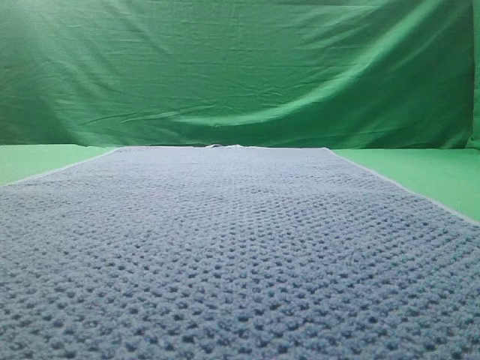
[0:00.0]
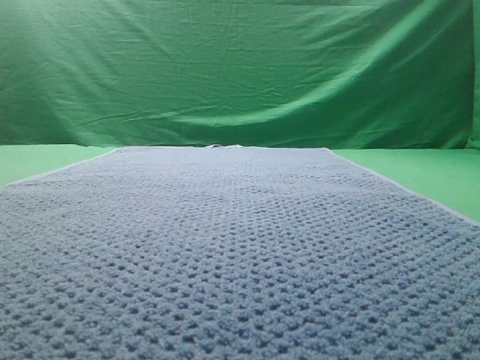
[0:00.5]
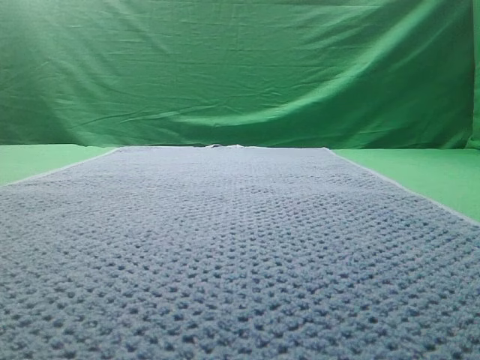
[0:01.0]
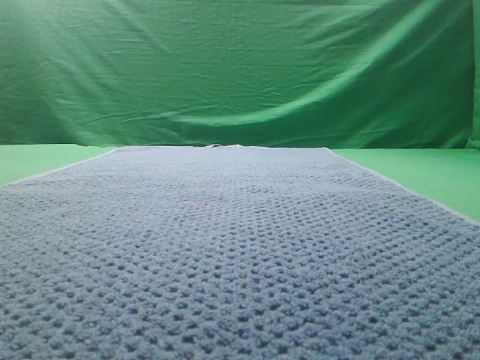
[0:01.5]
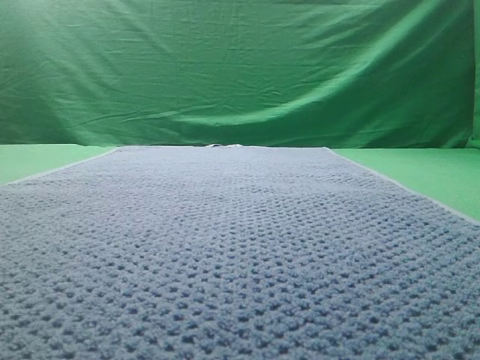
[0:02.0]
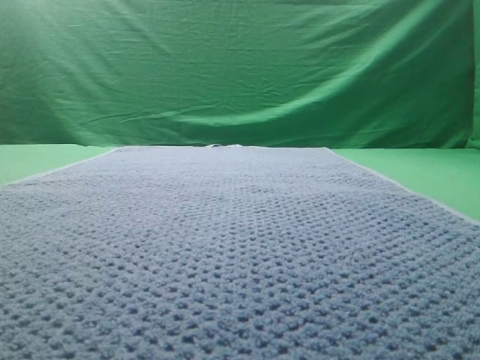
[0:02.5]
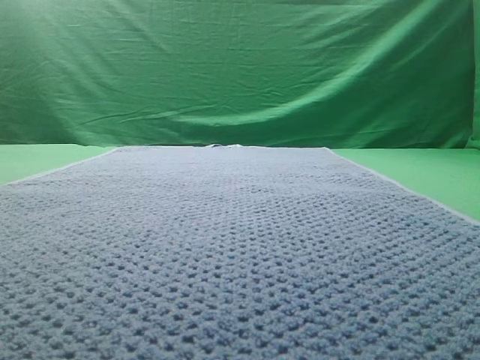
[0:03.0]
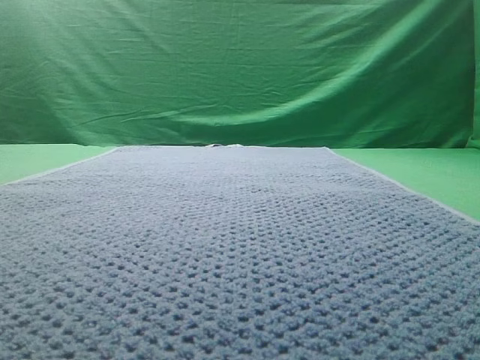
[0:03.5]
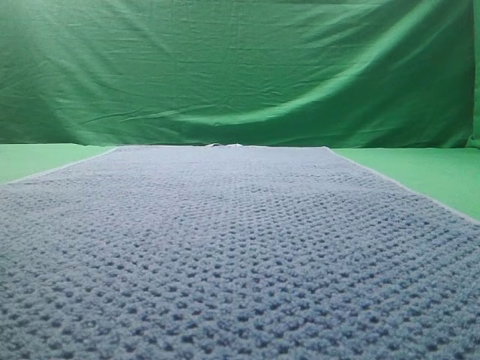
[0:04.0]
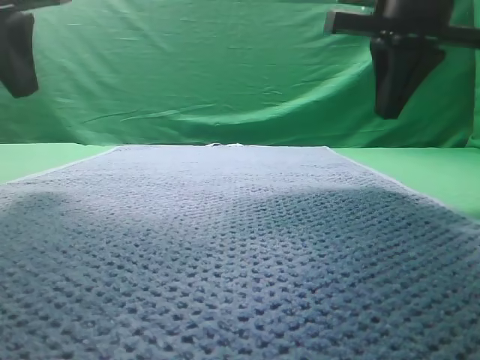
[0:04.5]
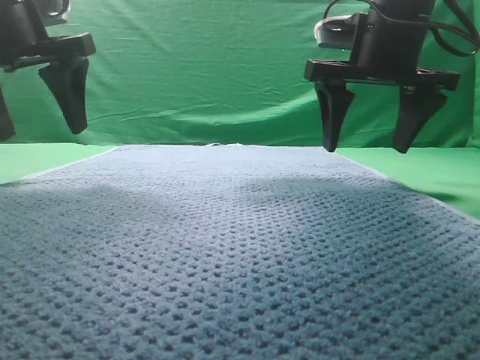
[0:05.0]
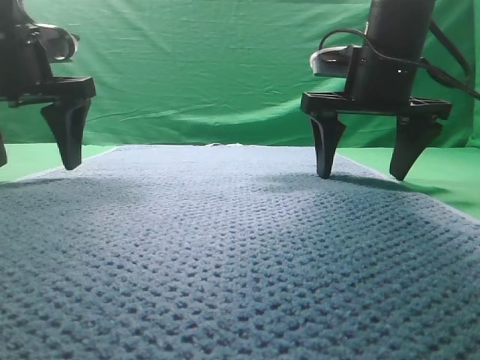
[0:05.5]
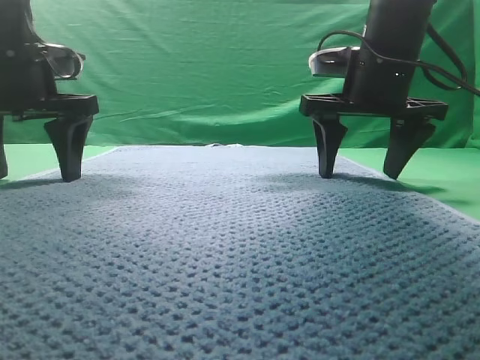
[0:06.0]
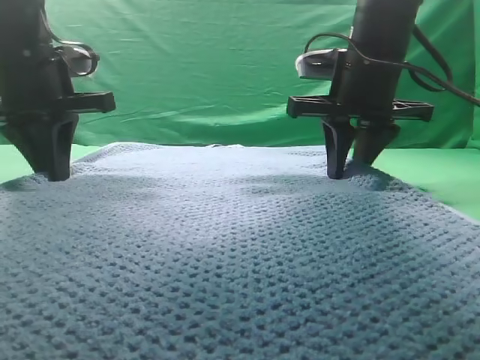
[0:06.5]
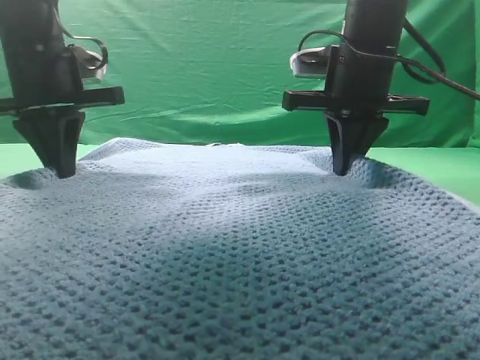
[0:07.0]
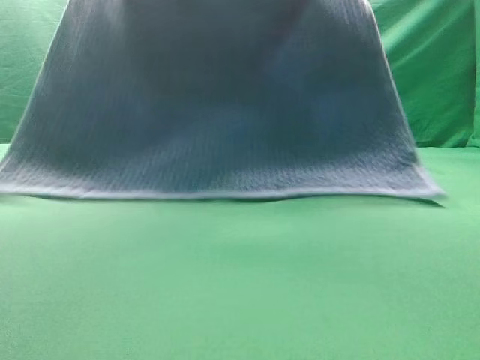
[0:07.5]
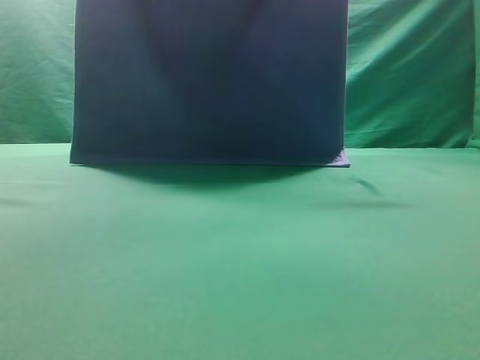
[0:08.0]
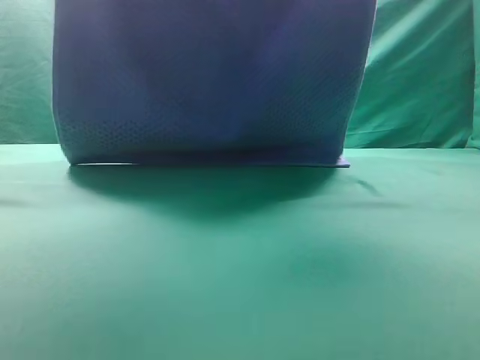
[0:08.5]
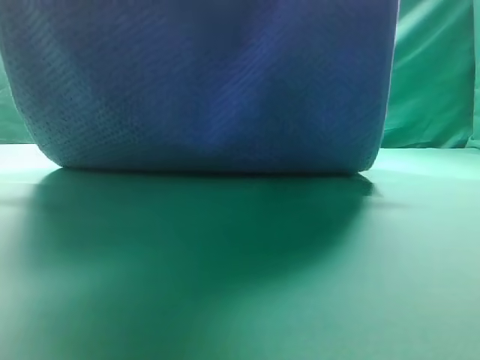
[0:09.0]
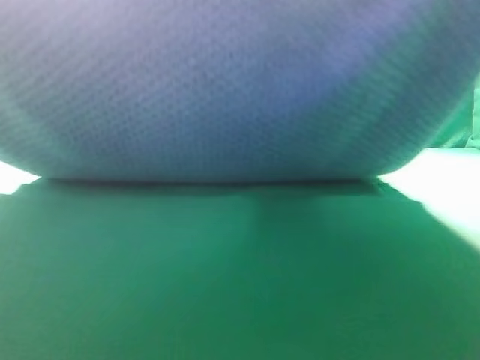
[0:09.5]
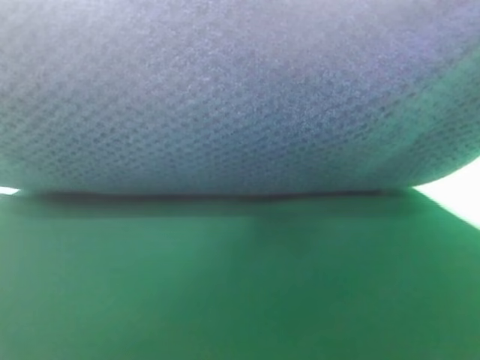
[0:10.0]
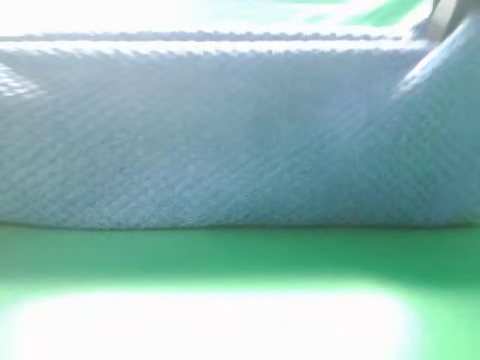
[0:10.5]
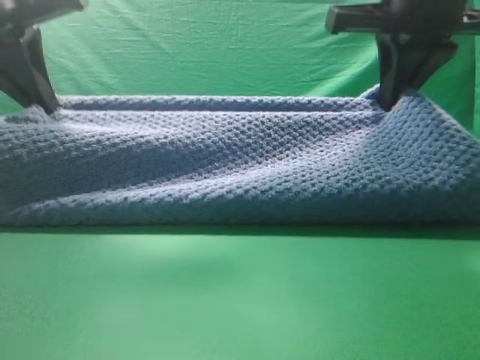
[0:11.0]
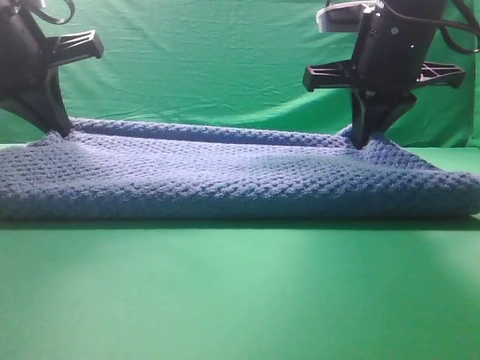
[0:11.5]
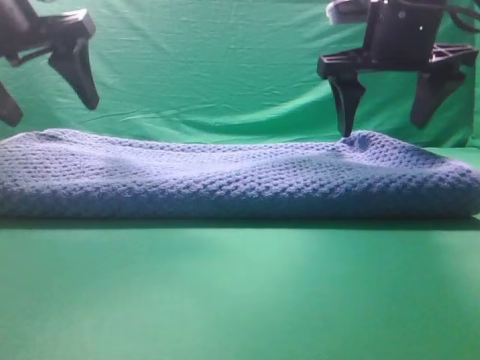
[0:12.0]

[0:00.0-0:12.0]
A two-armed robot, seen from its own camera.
Task of the whole recording: fold the towel on the table twice.
Step, 0:00.0 to 0:07.5: pick up the towel with two arm.

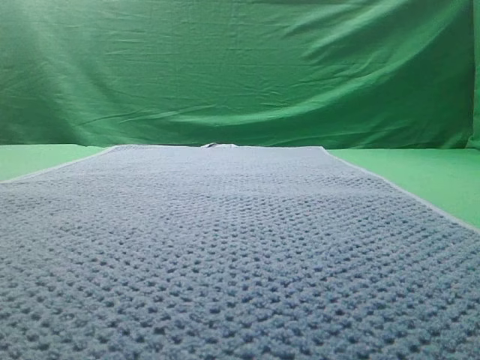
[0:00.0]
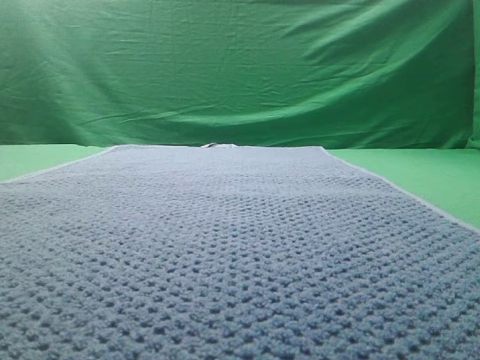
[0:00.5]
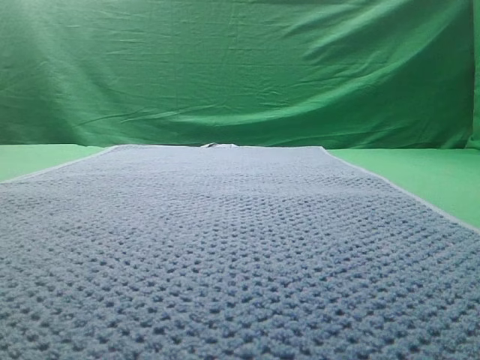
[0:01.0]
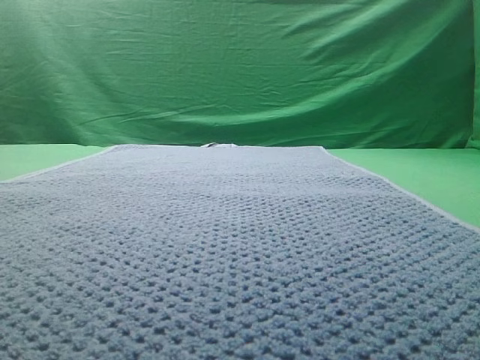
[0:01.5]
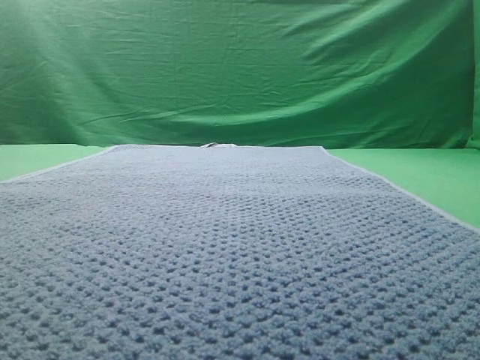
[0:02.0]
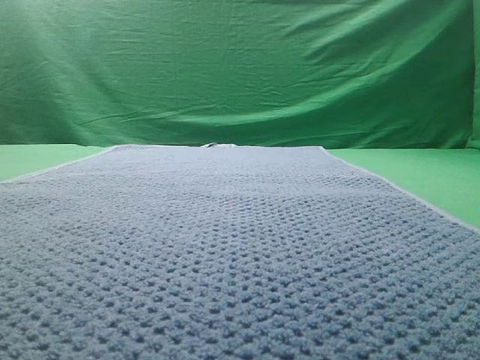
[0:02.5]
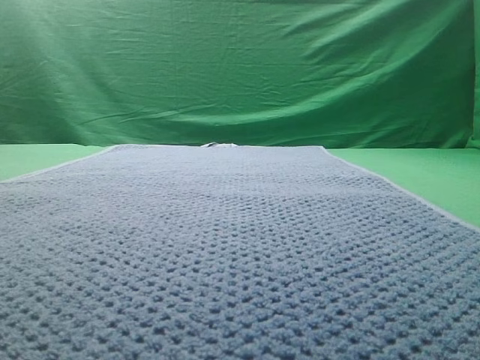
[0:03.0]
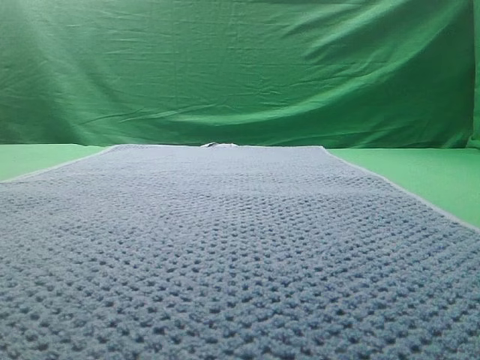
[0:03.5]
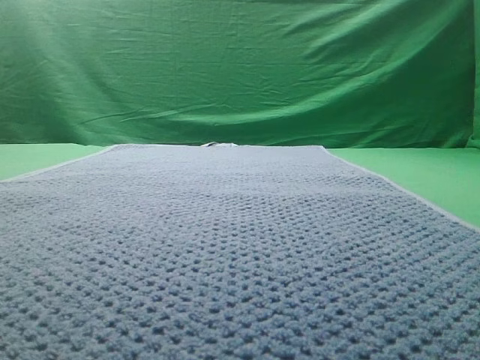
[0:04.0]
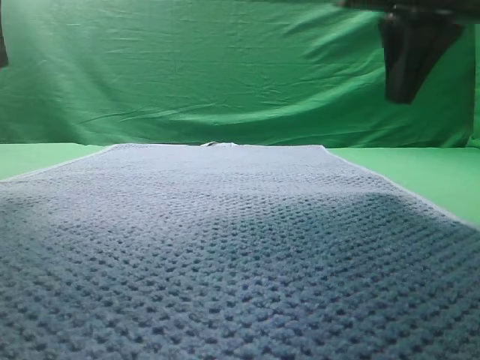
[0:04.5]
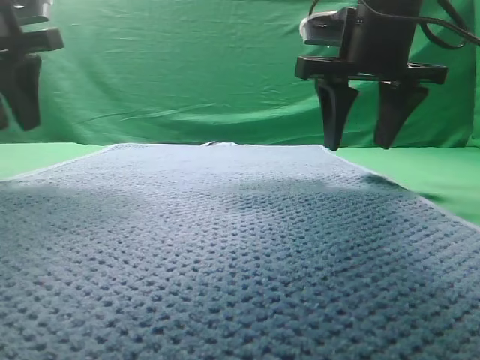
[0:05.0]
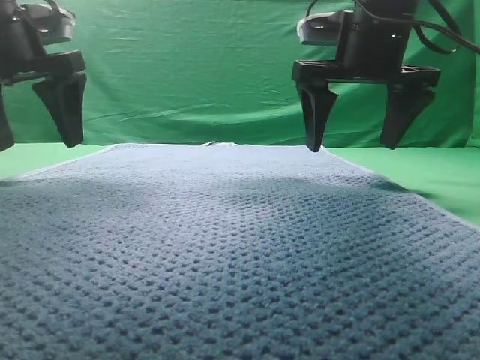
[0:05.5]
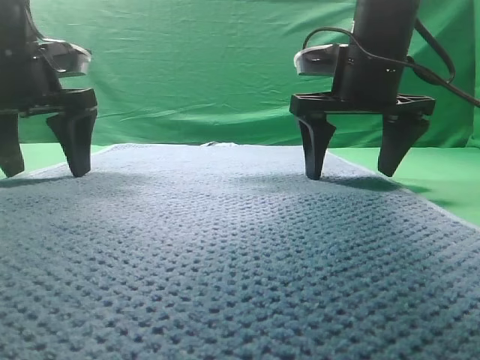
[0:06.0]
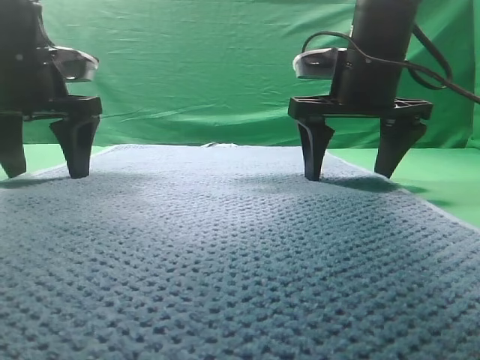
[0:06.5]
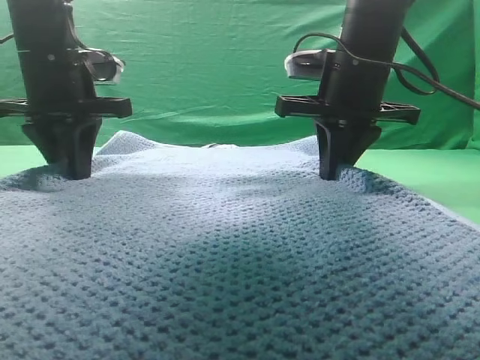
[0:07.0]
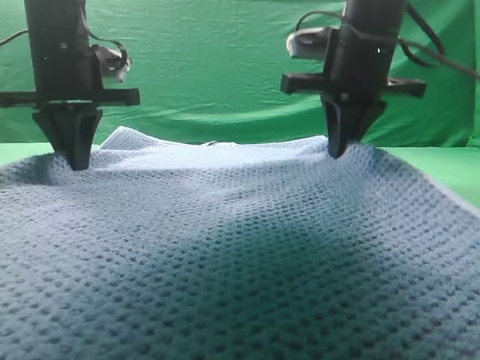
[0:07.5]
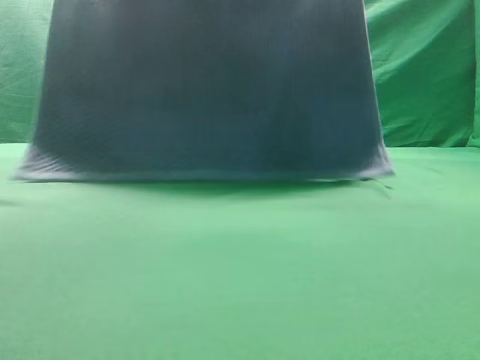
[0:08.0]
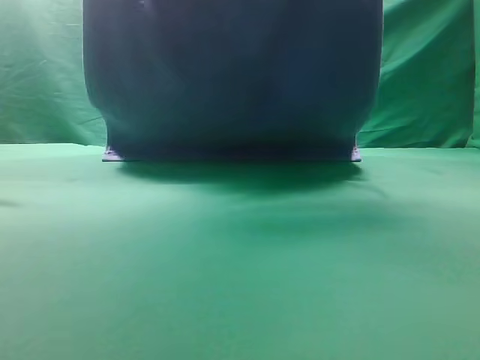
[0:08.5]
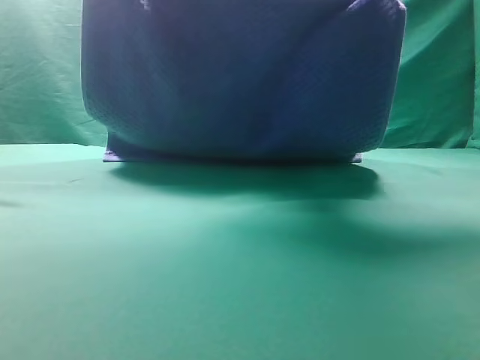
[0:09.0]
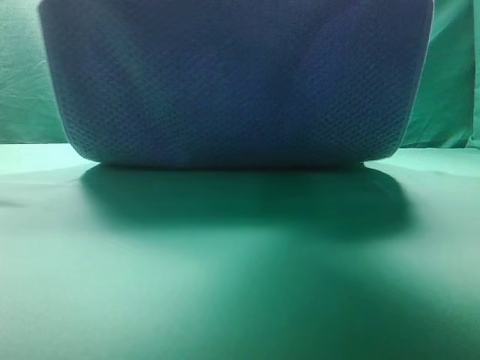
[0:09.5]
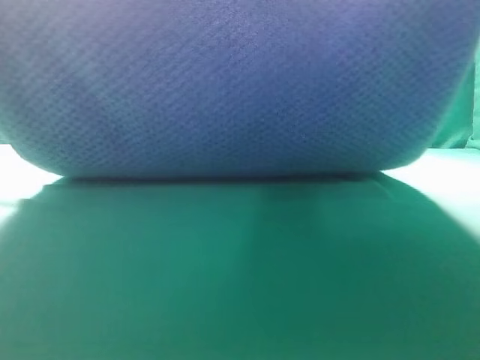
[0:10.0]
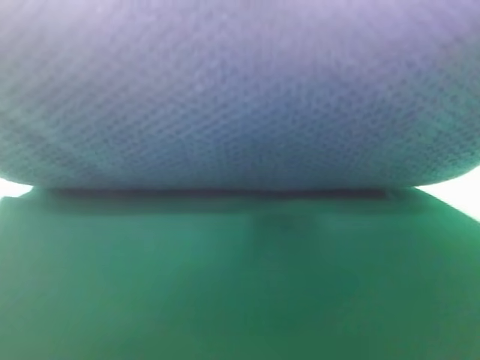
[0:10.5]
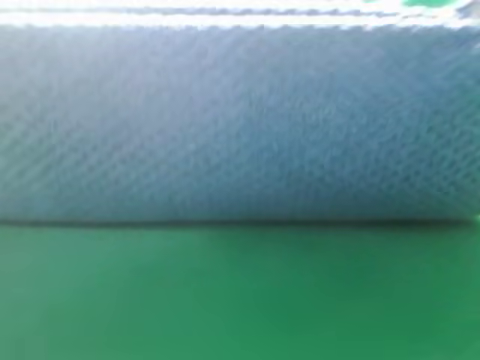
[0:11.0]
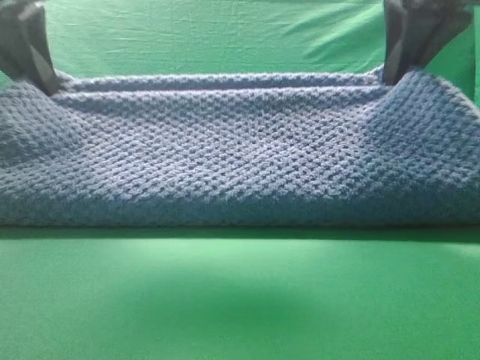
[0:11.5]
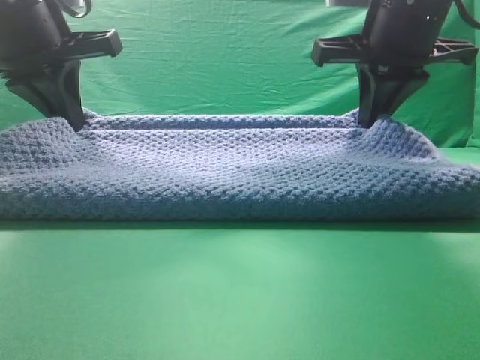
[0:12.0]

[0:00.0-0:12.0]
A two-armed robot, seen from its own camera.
Task of the whole recording: fold the towel on the table twice.
Step, 0:00.0 to 0:08.0: pick up the towel with two arm.

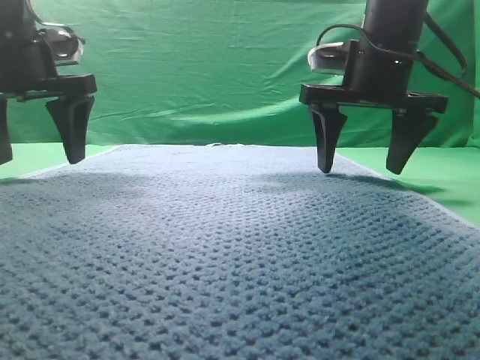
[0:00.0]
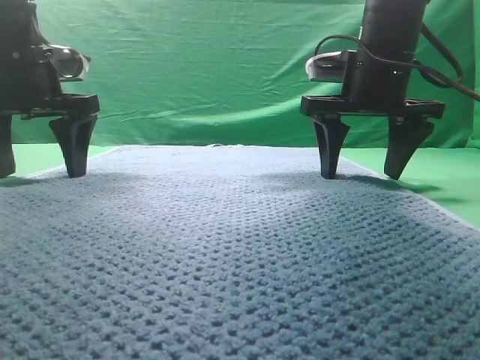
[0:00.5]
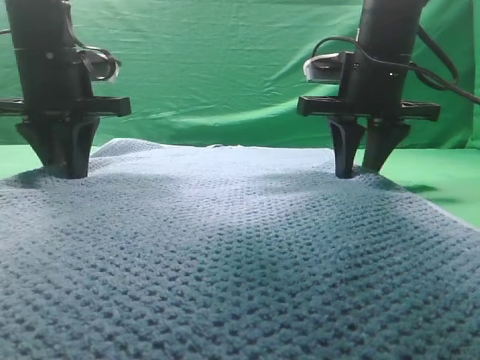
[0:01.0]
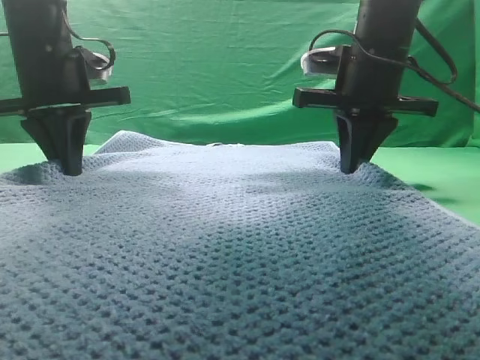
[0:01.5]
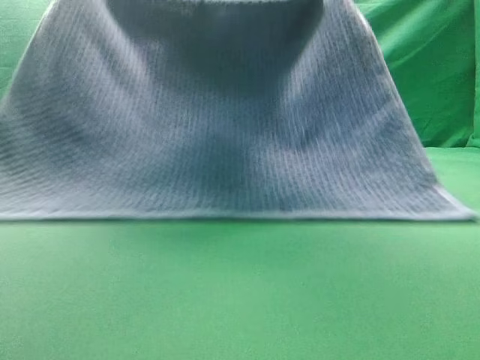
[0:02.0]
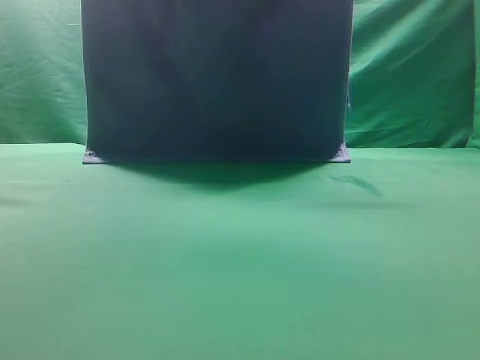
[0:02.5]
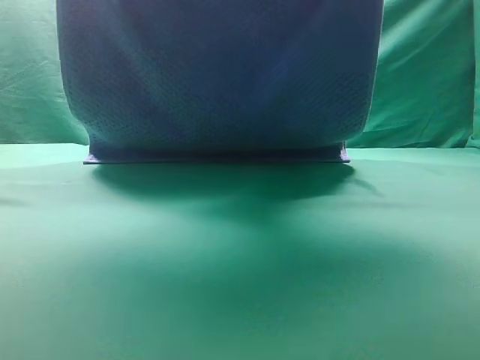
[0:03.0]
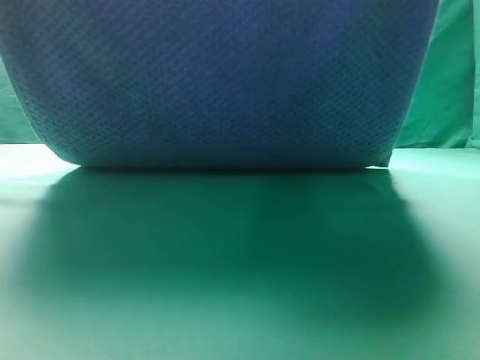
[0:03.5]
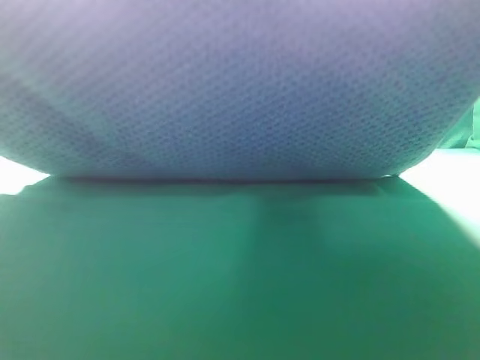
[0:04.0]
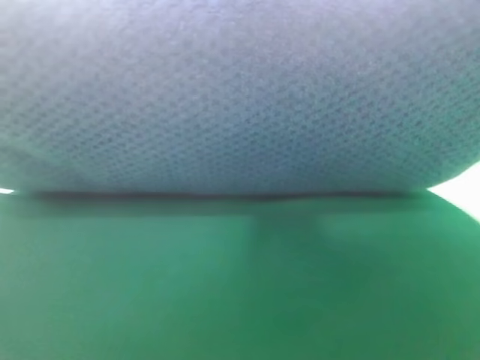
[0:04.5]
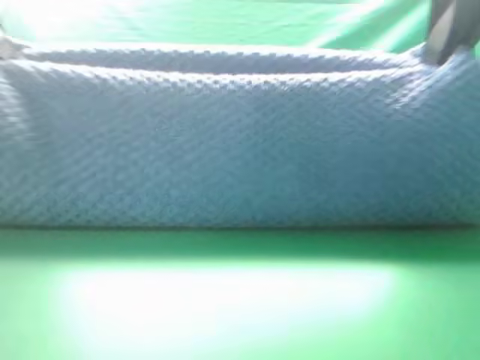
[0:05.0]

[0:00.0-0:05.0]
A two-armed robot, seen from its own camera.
Task of the whole recording: fold the towel on the table twice.
Step, 0:00.0 to 0:02.0: pick up the towel with two arm.
